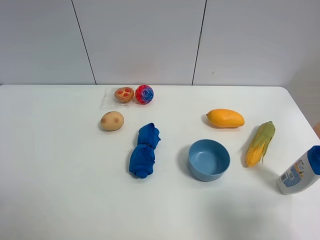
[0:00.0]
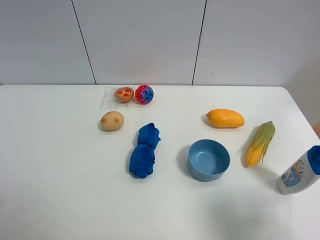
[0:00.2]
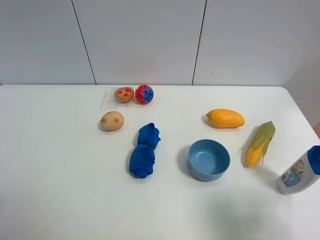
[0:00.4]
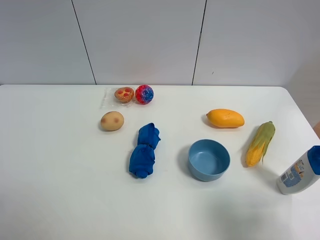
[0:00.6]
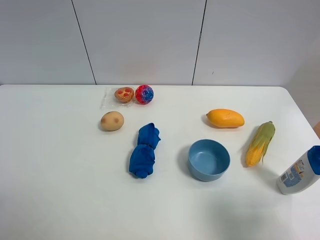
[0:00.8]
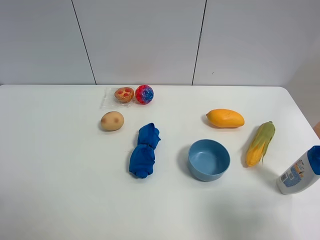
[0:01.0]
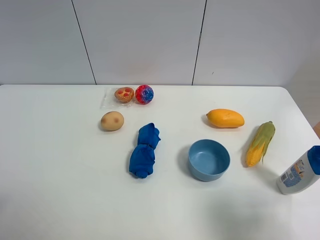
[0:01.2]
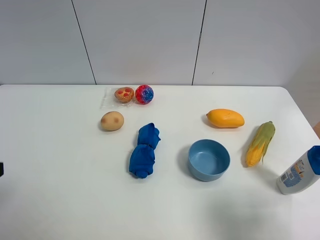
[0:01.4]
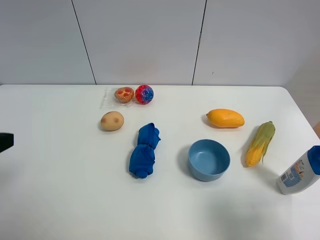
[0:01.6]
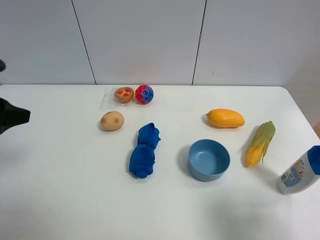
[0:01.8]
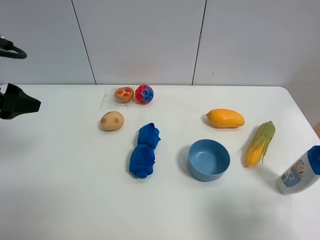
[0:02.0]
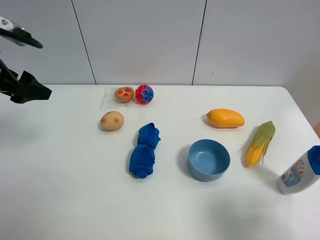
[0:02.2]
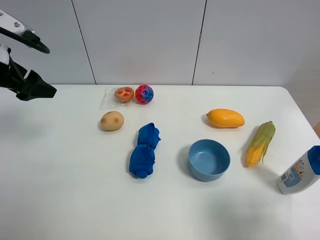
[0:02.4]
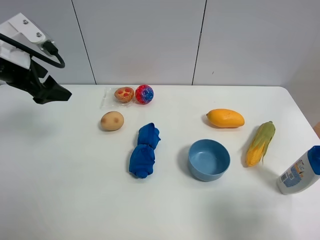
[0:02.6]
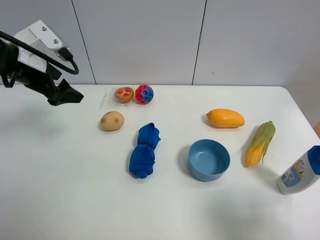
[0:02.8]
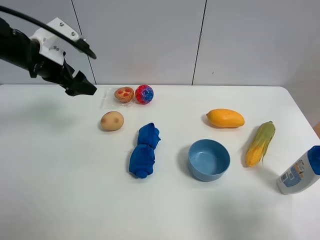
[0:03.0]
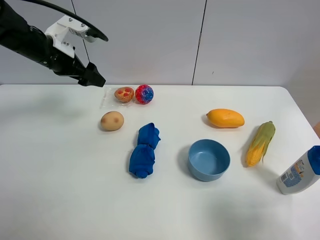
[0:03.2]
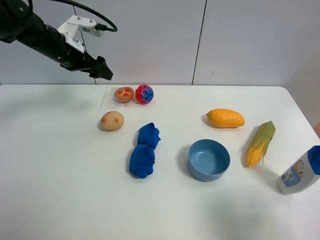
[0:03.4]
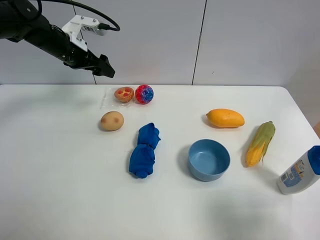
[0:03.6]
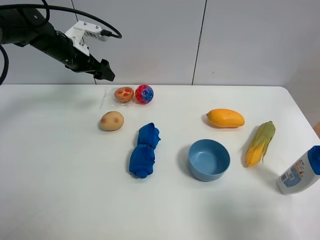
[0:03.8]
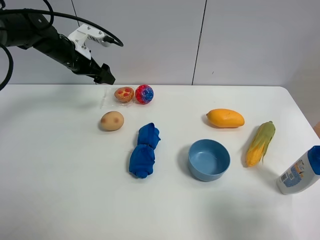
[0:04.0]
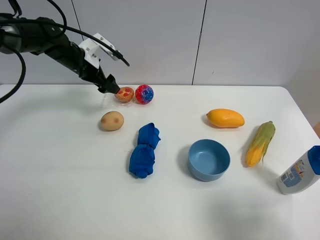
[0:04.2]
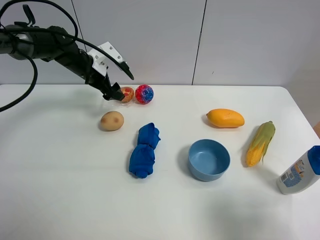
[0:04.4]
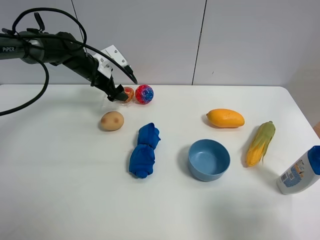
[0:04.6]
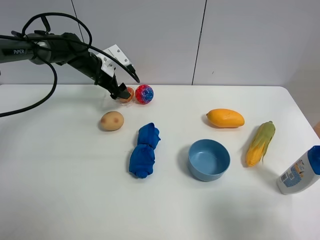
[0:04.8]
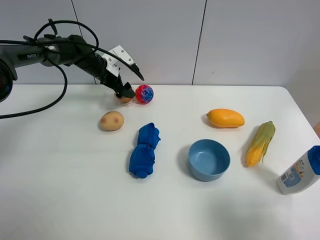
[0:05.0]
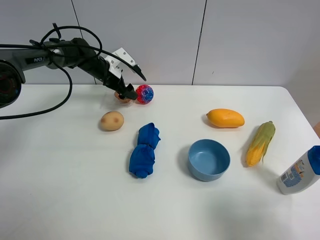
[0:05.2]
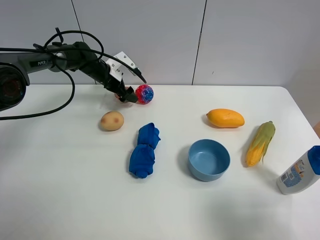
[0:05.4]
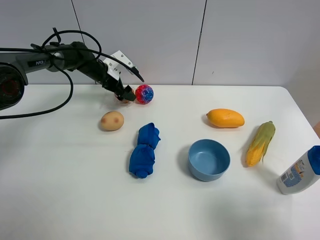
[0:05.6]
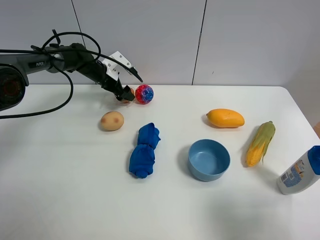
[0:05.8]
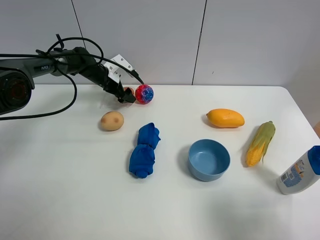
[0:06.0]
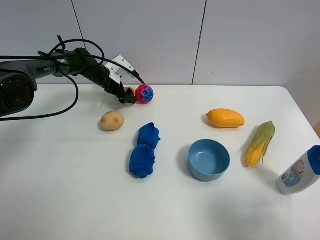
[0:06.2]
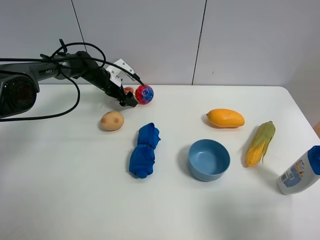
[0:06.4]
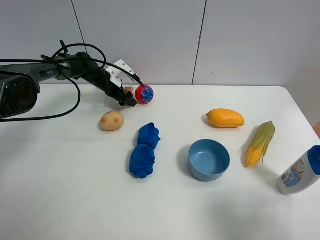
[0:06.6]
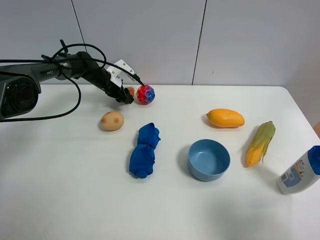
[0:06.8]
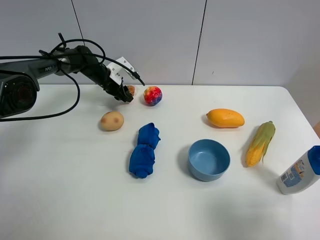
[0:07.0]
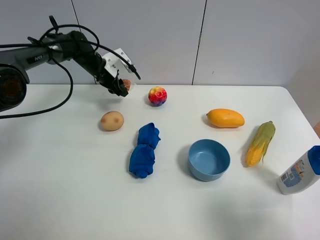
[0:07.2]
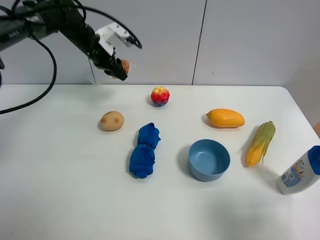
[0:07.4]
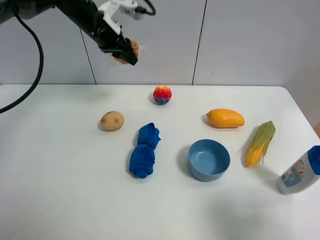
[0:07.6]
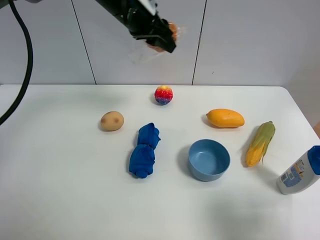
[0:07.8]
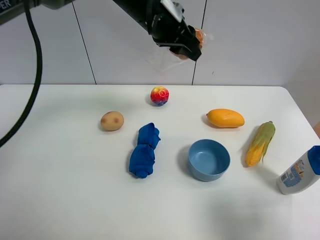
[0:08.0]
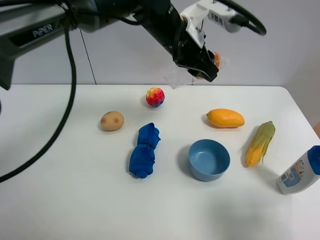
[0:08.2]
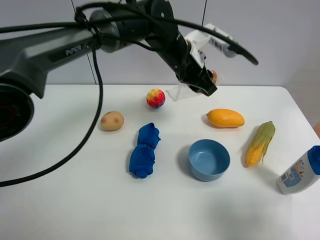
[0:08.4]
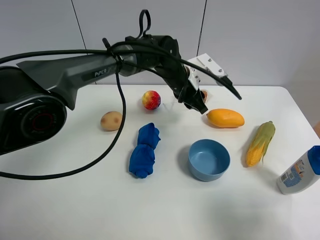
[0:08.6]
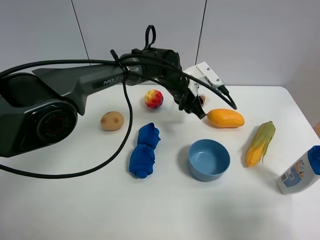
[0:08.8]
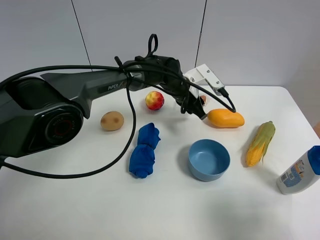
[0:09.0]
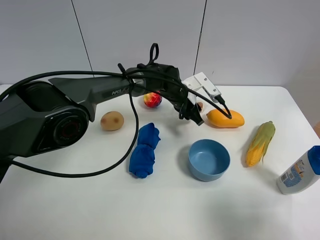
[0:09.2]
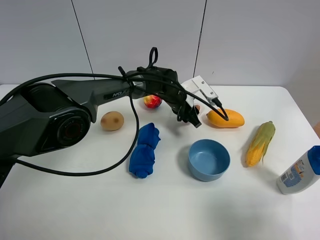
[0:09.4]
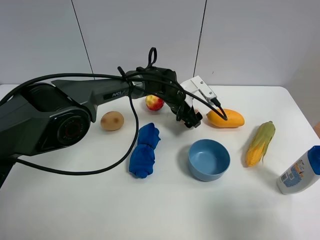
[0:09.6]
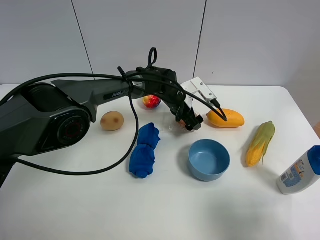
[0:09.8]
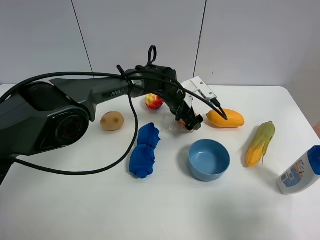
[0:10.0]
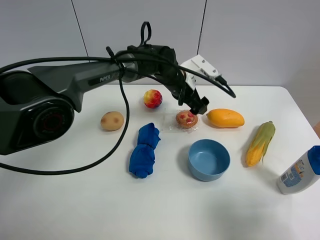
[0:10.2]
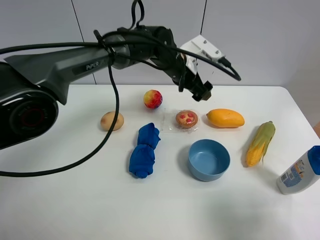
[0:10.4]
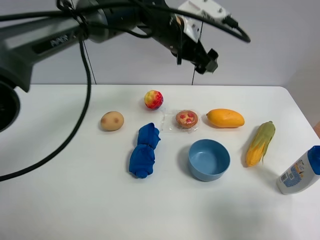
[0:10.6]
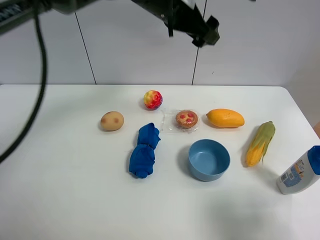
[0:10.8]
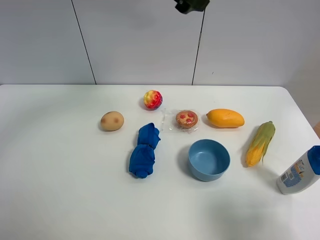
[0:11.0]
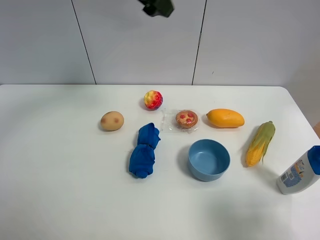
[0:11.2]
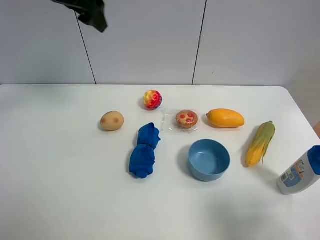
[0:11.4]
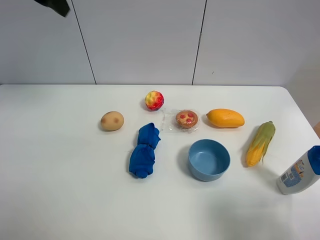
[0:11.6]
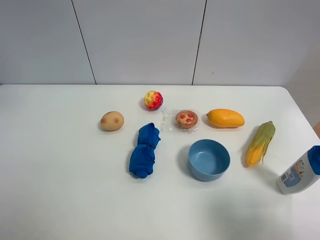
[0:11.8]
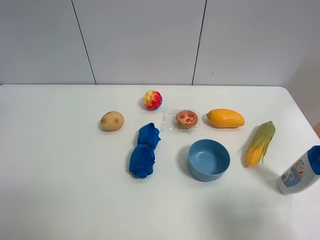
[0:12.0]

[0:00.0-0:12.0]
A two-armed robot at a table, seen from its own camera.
Task of the whole recording: the gripper move the object.
0:01.6 to 0:03.0: The left gripper moves forward, some 25 cm.
0:03.0 to 0:04.4: The left gripper heads forward, downward and to the right, covering about 15 cm.
0:04.4 to 0:06.0: The left gripper goes some 10 cm downward and forward.
0:06.0 to 0:07.6: The left gripper moves upward, roughly 20 cm, and closes.
0:07.6 to 0:09.0: The left gripper heads to the right and downward, covering some 25 cm.
0:09.0 to 0:10.4: The left gripper shifts about 5 cm upward, and opens up.
0:10.4 to 0:12.0: The left gripper shifts approximately 50 cm to the left, upward and backward.

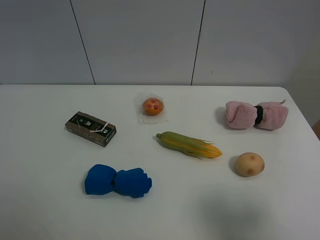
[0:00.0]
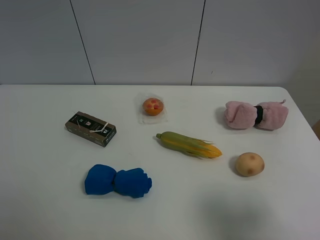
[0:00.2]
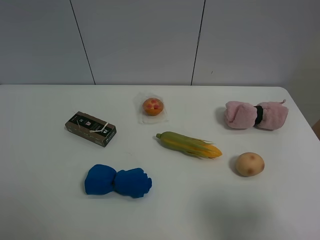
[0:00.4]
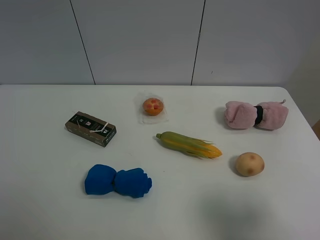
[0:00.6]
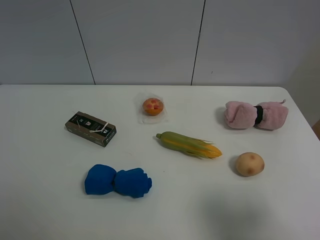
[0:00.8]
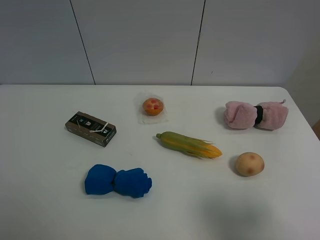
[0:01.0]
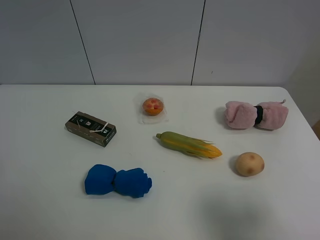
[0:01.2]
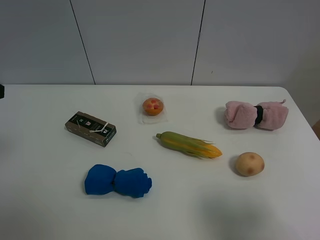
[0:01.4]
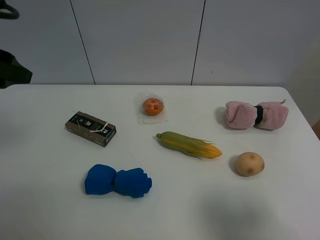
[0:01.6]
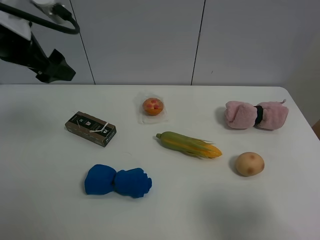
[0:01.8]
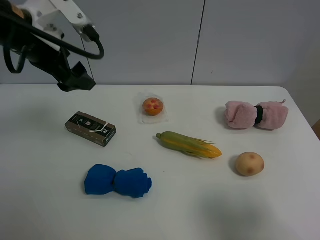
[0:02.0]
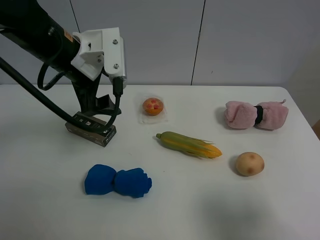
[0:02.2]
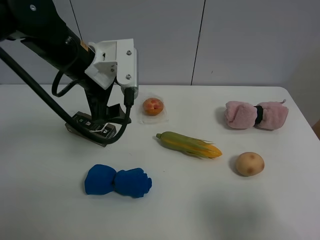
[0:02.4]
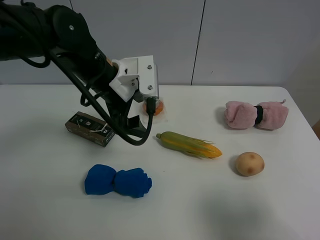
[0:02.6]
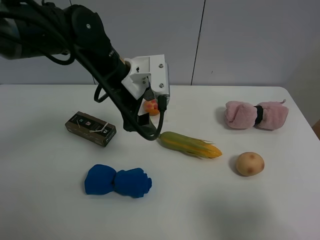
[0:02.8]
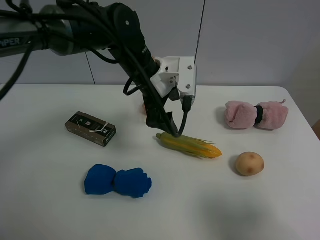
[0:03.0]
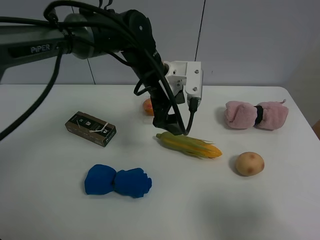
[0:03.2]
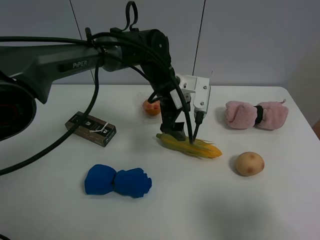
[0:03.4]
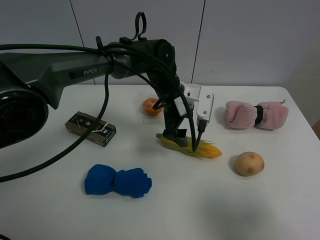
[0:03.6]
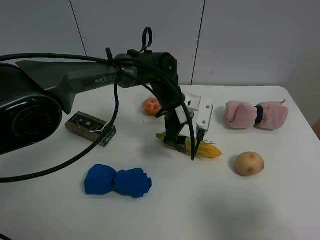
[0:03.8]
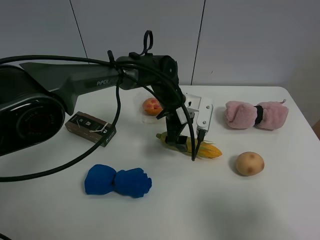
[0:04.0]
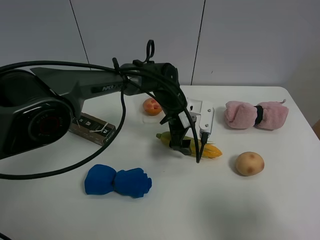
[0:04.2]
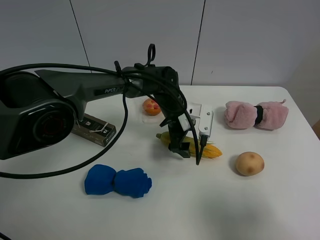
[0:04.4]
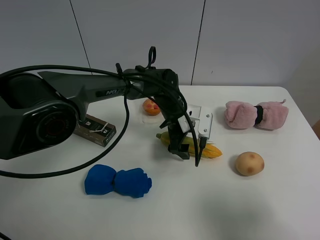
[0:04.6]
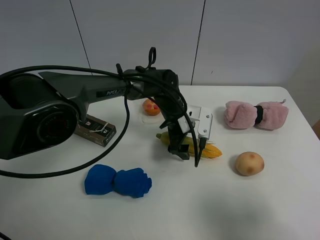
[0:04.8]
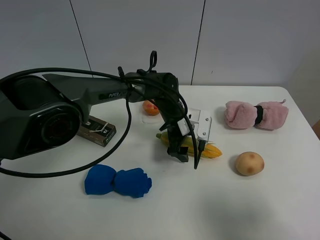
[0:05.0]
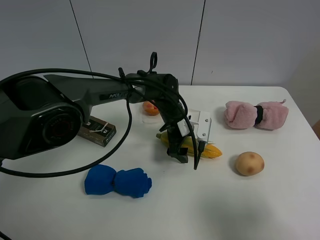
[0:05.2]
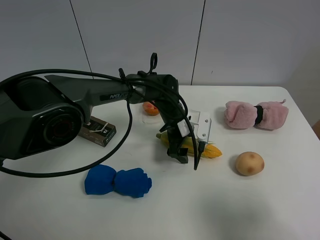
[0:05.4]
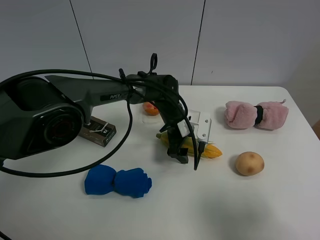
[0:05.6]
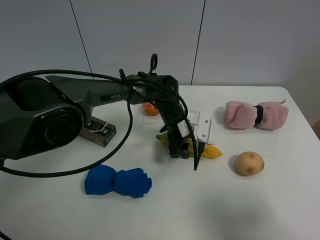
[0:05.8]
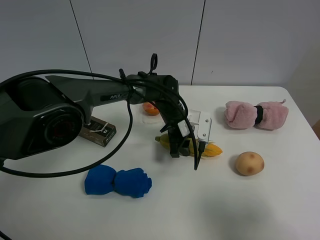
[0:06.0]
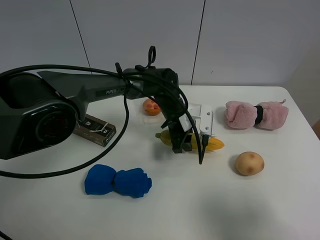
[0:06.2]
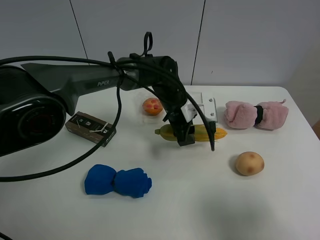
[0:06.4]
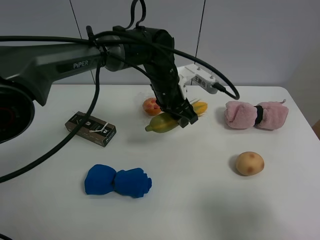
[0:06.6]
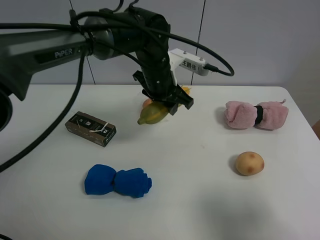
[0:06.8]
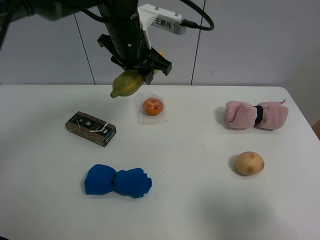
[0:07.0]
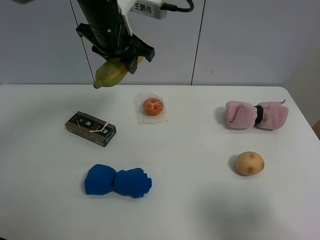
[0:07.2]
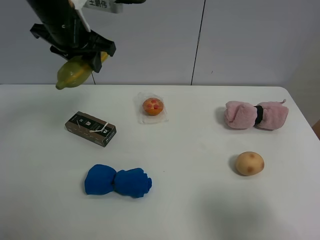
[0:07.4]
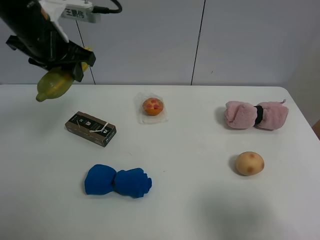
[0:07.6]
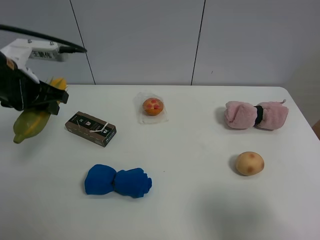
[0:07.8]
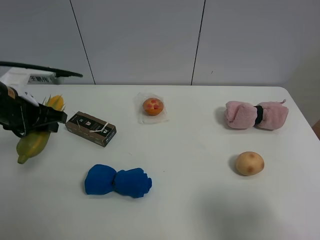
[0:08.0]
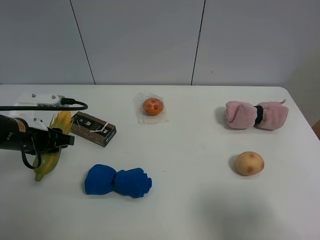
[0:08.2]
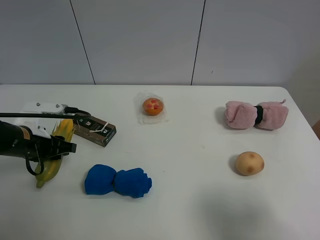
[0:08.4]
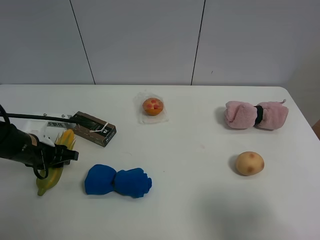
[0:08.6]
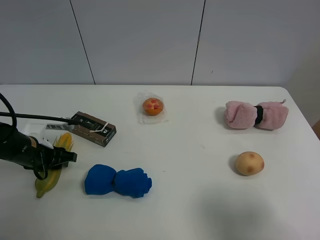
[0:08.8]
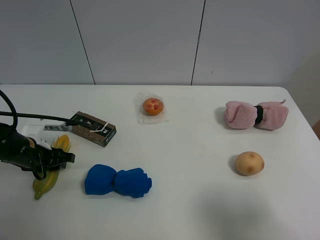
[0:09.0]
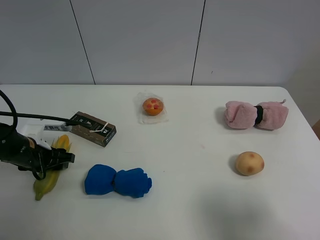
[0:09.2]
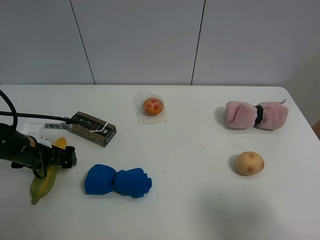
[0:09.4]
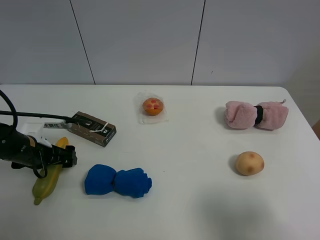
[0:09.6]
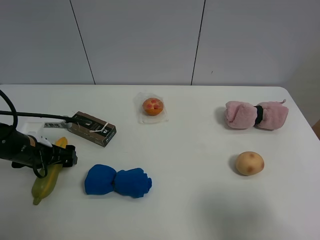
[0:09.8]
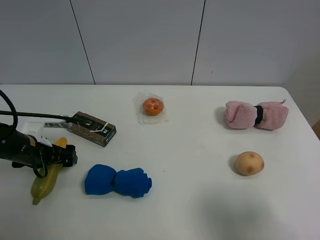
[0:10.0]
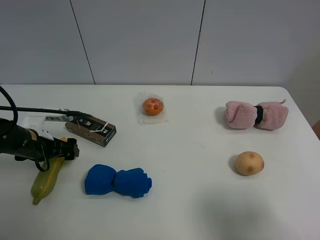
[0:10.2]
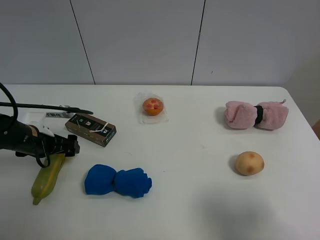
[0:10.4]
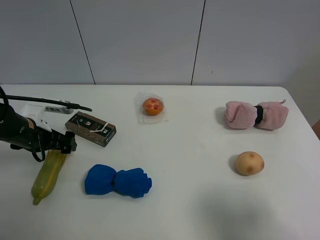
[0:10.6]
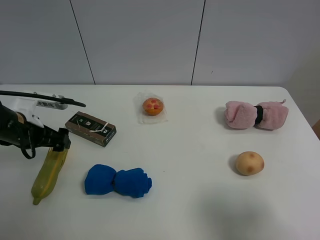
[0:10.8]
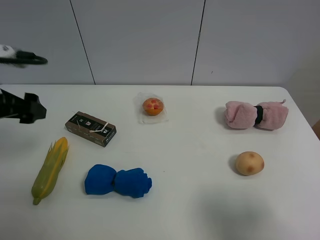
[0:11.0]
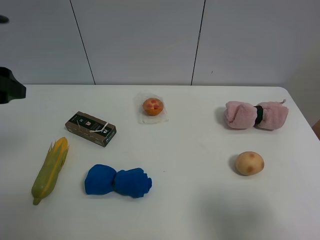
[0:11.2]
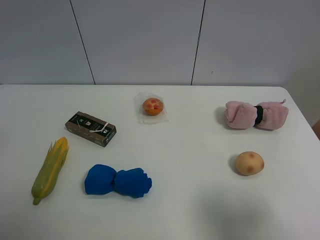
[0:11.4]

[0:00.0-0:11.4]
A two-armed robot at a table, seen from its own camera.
Task of the whole recording: the gripper move the object.
Step, 0:00.0 to 0:06.0: Grasp the corn with the left gripper.
Step, 0:06.2 to 0:09.2: Place the corn on the table with the left gripper.
0:01.4 to 0:02.8: The left gripper moves to the right, forward and downward, some 30 cm.
0:02.8 to 0:04.2: The left gripper is displaced downward and to the right by approximately 15 cm.
0:04.2 to 0:05.6: There are only small adjustments of the grippers.
0:05.6 to 0:07.2: The left gripper travels upward and to the left by about 30 cm, and closes up.
0:07.2 to 0:08.6: The left gripper travels downward, to the left and backward by some 30 cm.
0:08.6 to 0:10.0: The left gripper opens.
0:10.0 to 0:11.4: The left gripper travels upward by some 30 cm.
